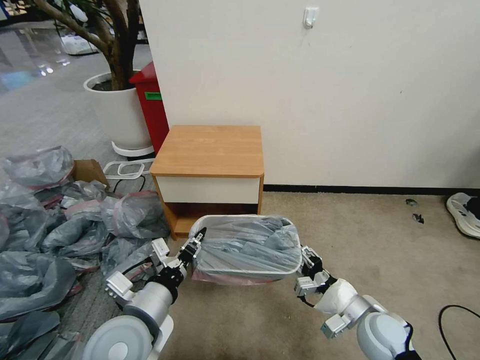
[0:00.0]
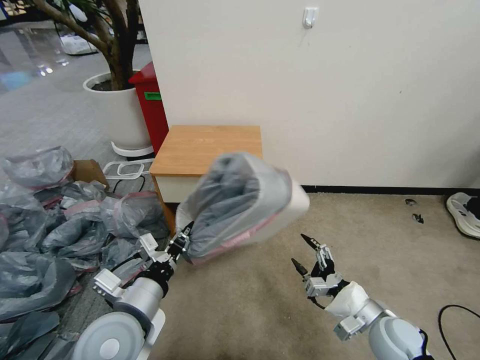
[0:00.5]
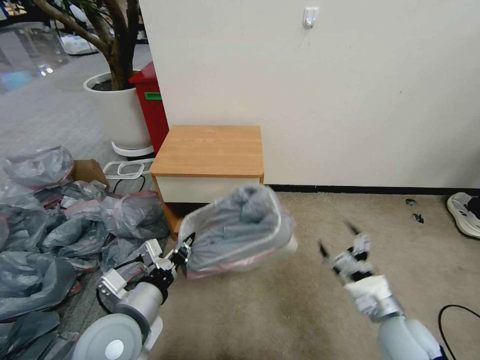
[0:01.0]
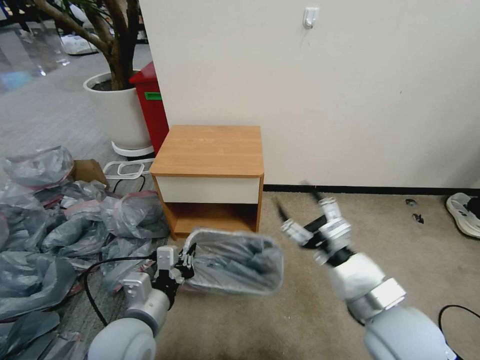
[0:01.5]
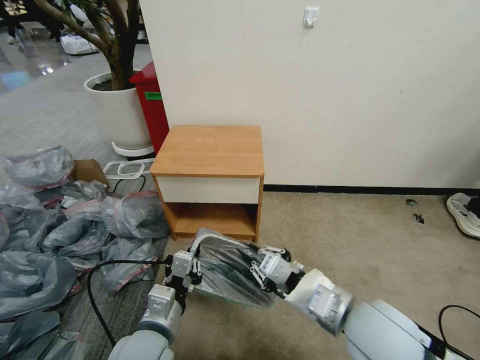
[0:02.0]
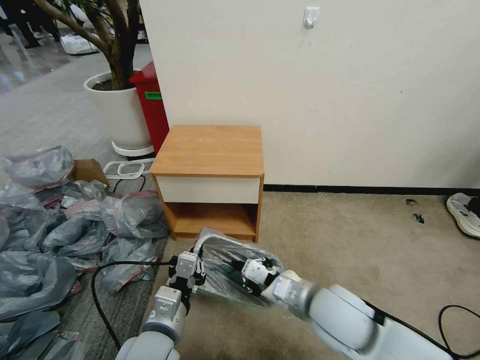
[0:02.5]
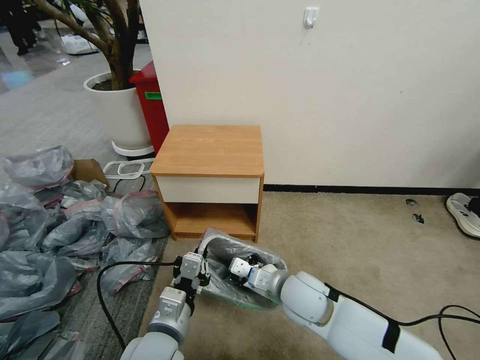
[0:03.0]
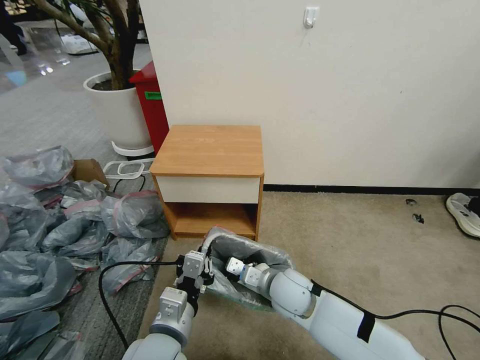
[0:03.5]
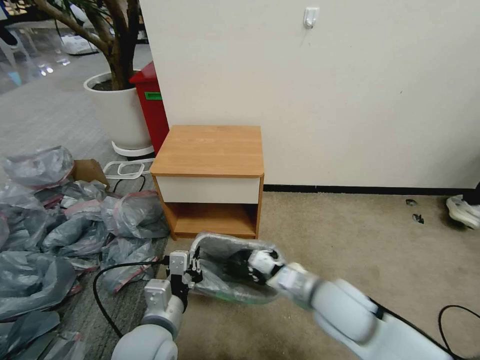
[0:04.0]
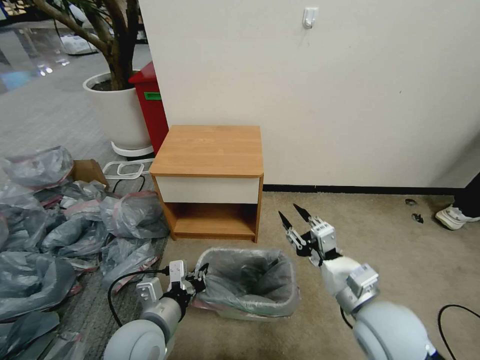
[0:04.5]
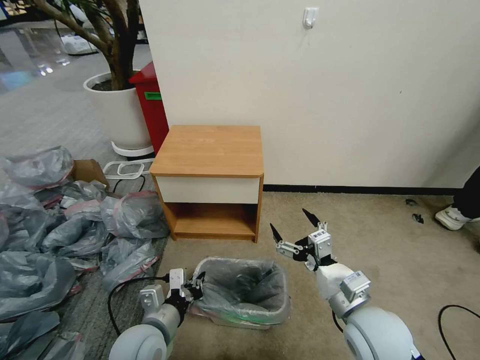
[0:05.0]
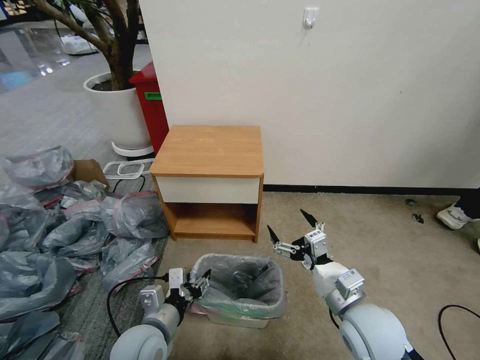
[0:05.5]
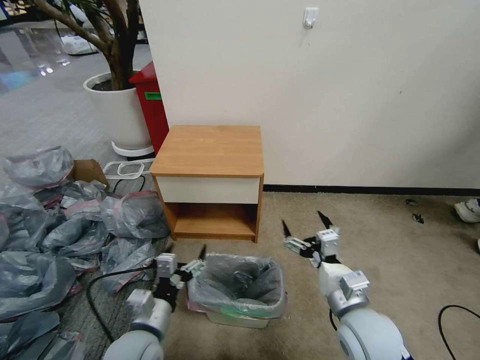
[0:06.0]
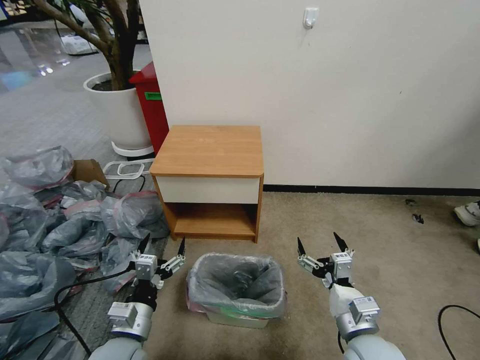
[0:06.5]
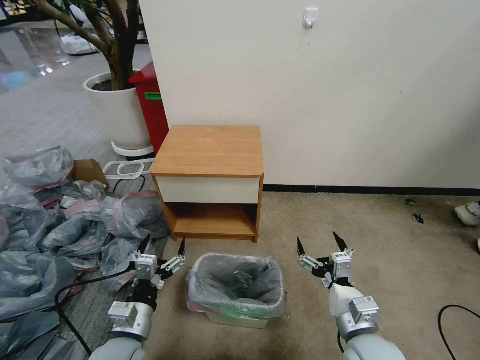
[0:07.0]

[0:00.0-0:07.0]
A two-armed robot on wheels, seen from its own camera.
Task of the whole recording: Pick up the garbage bag from the table and place it over the trash can.
0:00.0 to 0:02.0: The left gripper shifts by some 5 cm; the right gripper goes roughly 20 cm upward and to the left, and closes.
0:02.0 to 0:03.5: The right gripper shifts about 20 cm downward, forward and to the left.
0:03.5 to 0:05.0: The left gripper heads downward and to the left, covering about 10 cm. Meanwhile the right gripper is displaced to the right, backward and upward by roughly 20 cm, and opens.
0:05.0 to 0:07.0: The left gripper opens up. Meanwhile the right gripper is displaced downward by some 5 cm.

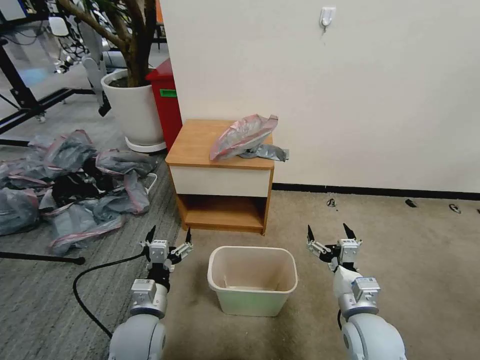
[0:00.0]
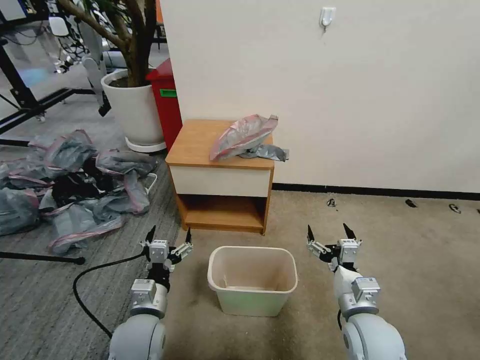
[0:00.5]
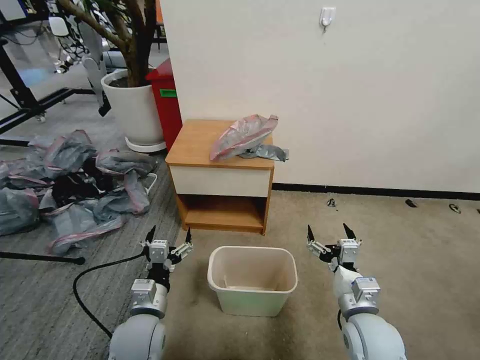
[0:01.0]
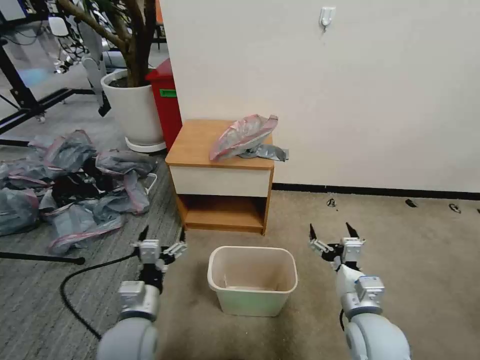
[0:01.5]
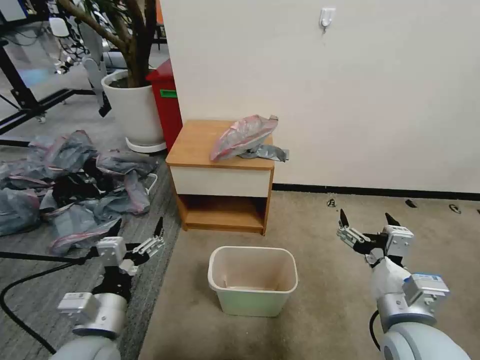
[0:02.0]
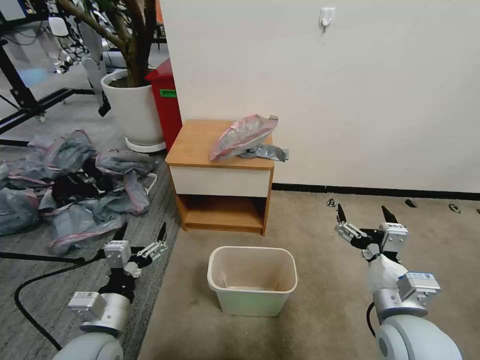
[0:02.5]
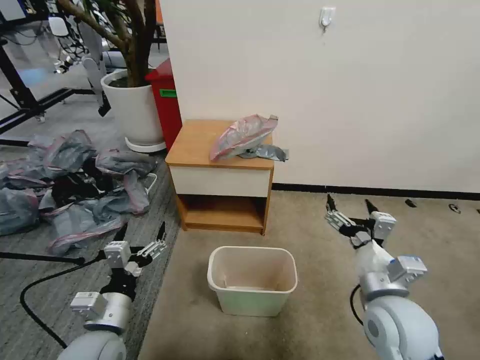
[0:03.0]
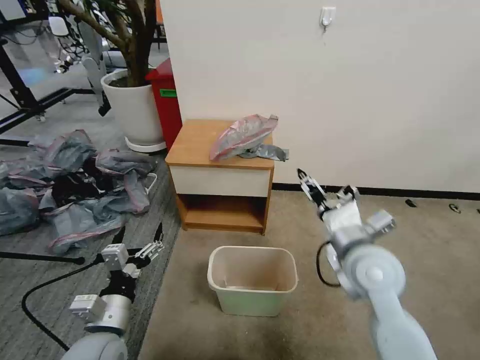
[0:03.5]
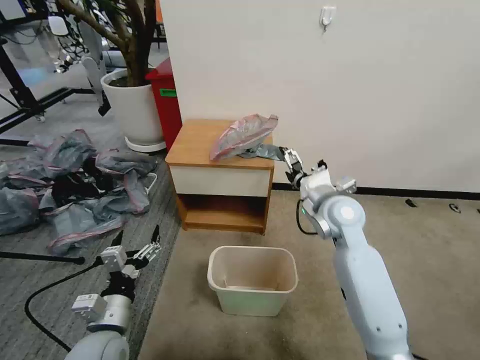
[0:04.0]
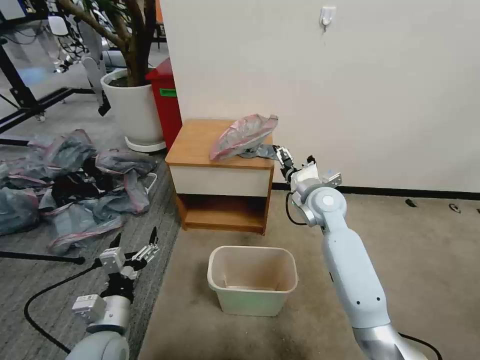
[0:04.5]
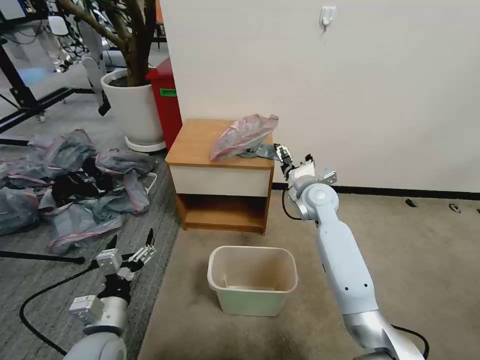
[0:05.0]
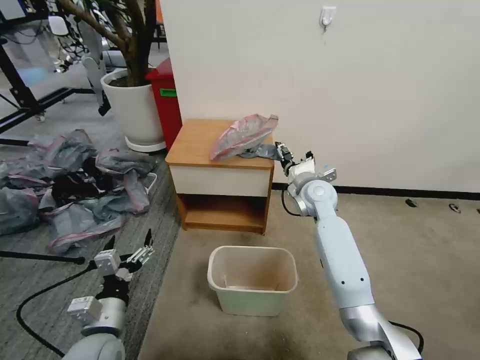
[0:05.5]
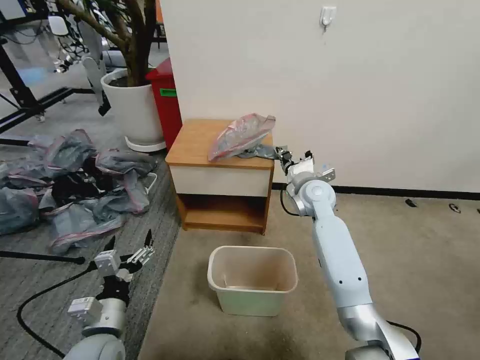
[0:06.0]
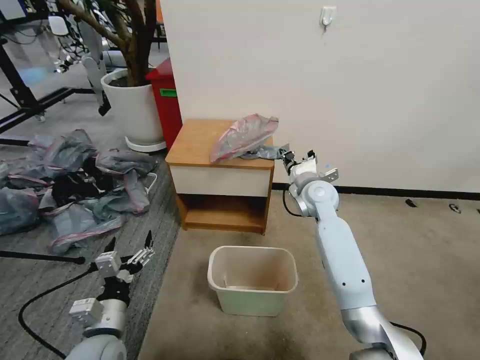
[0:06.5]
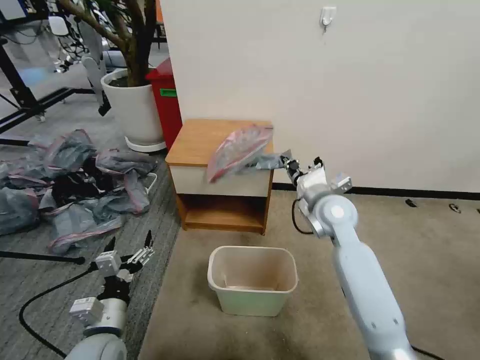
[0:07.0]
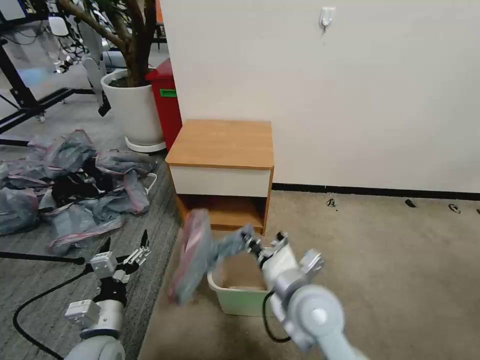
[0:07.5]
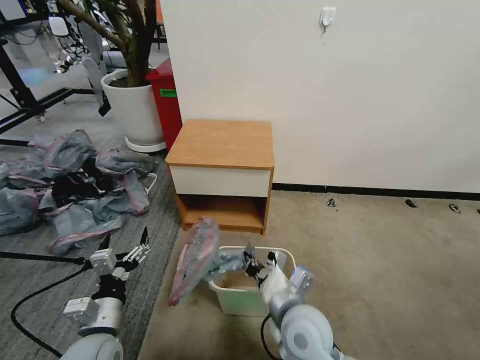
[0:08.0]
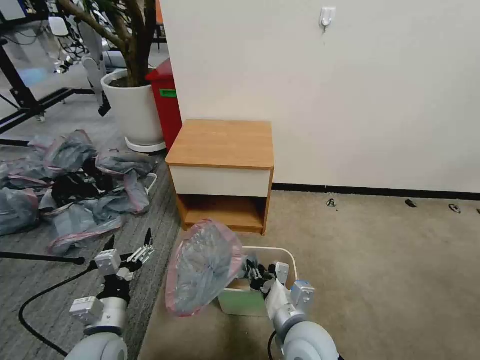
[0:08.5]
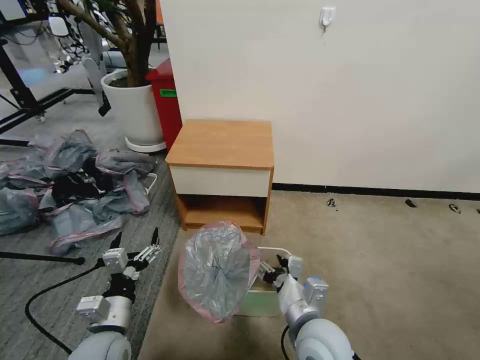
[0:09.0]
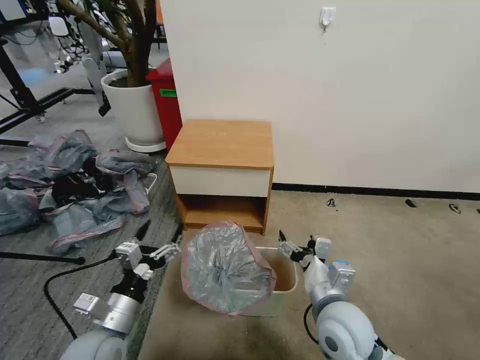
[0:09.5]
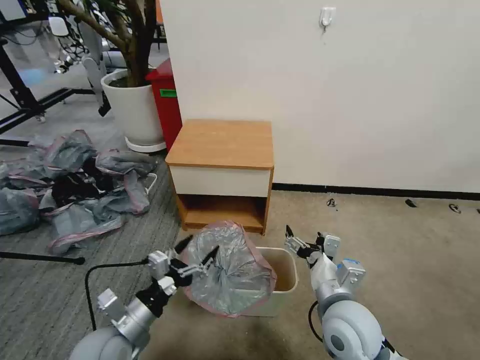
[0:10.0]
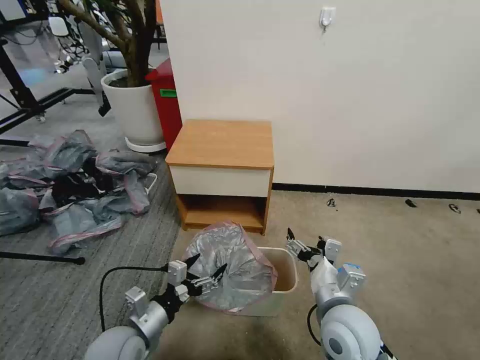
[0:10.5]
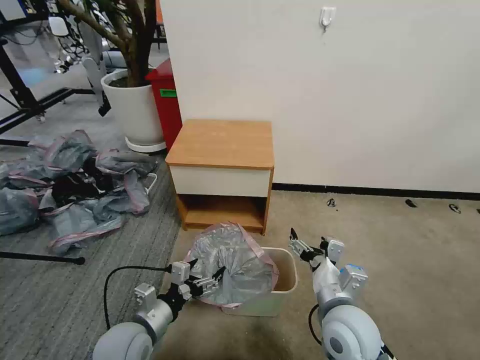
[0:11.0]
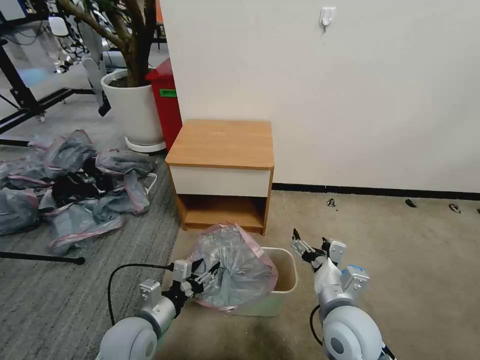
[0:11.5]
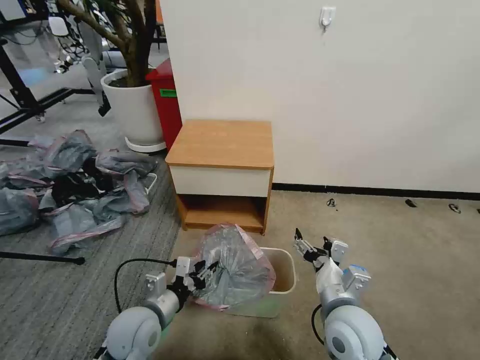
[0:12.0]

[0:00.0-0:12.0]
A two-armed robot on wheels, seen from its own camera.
Task of the whole recording: Pick up the garbage bag from the table and place it over the trash can.
0:02.0 to 0:04.0: The right gripper is displaced forward by approximately 25 cm. Meanwhile the left gripper heads downward, covering some 5 cm.
0:04.0 to 0:06.0: The right gripper heads forward, covering approximately 10 cm, and closes up.
0:06.0 to 0:08.0: The right gripper heads backward, covering roughly 30 cm.
0:08.0 to 0:10.0: The right gripper heads to the right, covering some 10 cm, and opens up.
0:10.0 to 0:12.0: The left gripper shifts by roughly 5 cm, and closes its fingers.

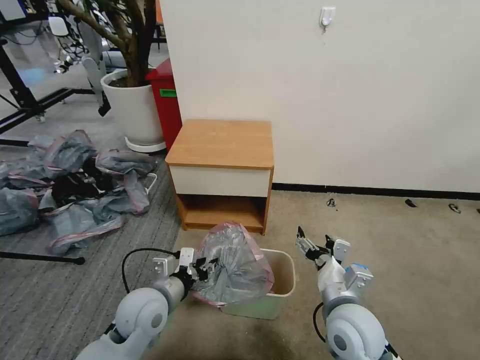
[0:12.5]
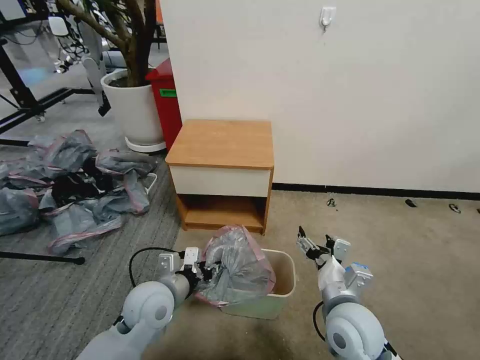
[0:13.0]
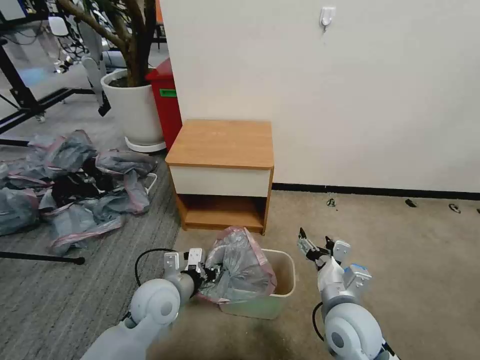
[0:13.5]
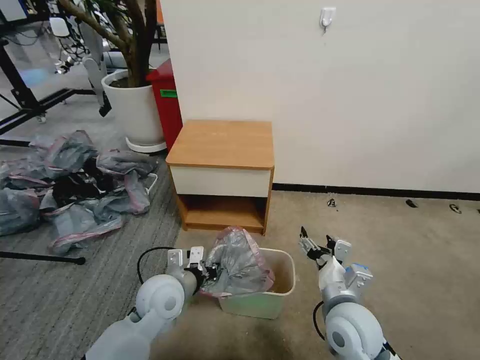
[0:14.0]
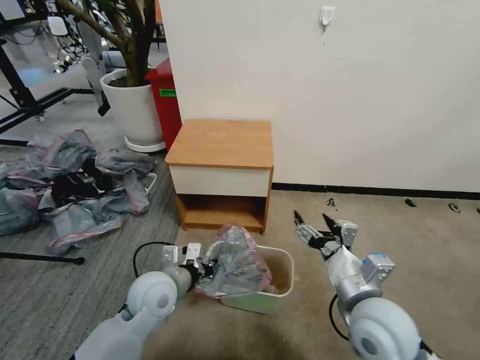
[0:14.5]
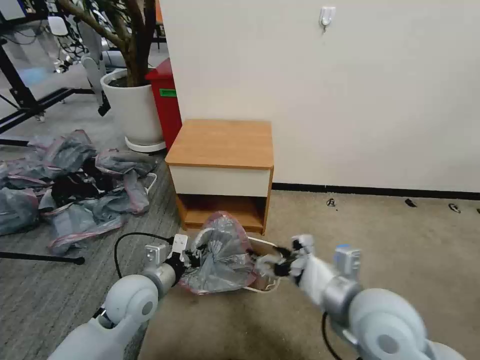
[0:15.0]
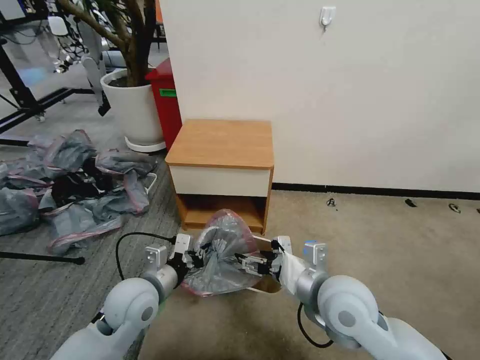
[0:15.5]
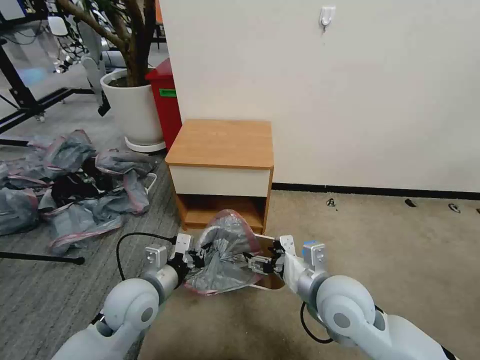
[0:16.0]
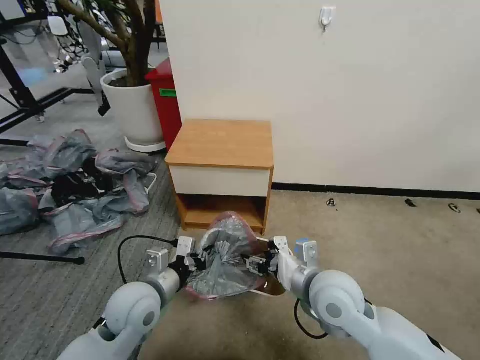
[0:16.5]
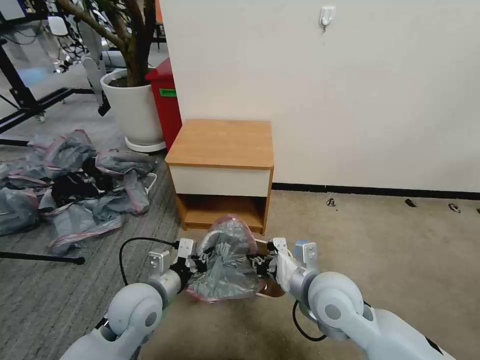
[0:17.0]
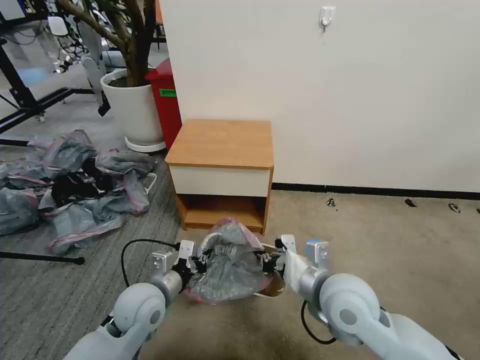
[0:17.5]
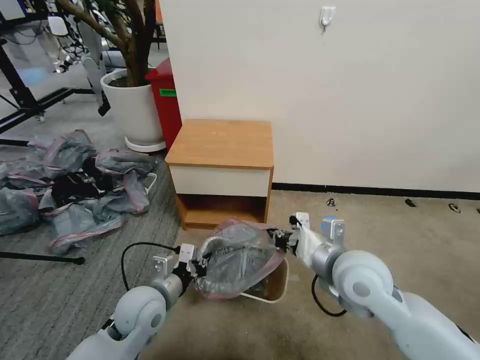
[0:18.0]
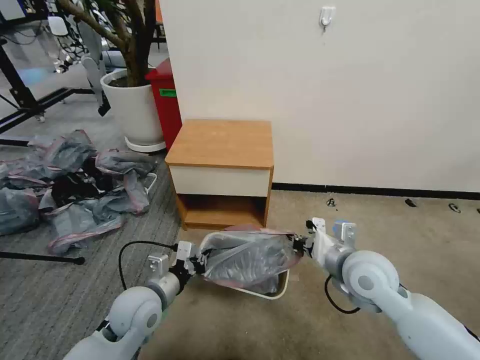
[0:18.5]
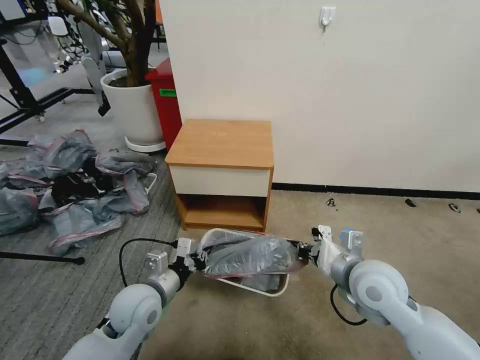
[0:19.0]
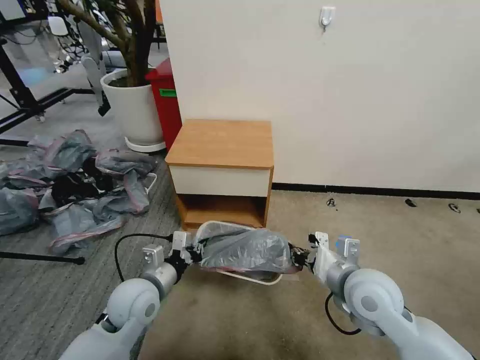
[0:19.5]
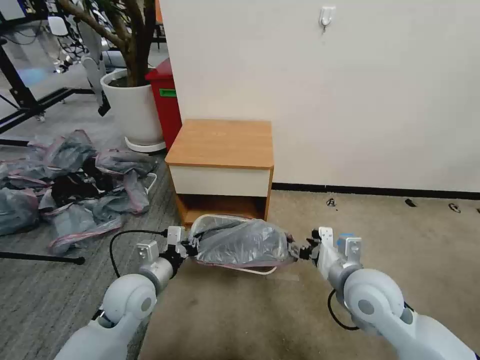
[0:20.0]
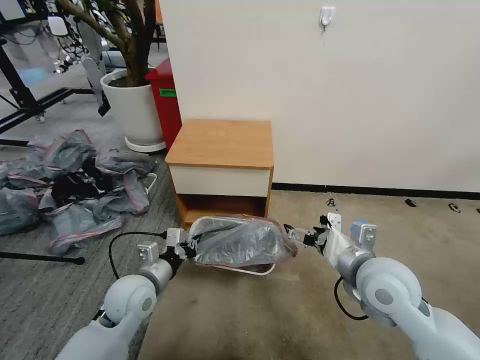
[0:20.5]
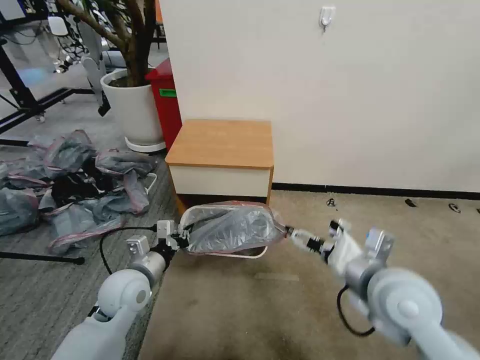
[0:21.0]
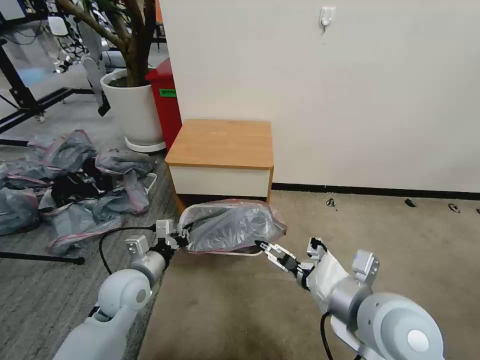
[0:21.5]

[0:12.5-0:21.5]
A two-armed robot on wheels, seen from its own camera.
Task of the whole recording: Pick up the garbage bag from the table and place it over the trash can.
0:12.5 to 0:14.5: The left gripper closes its fingers.
0:14.5 to 0:17.0: The right gripper goes approximately 5 cm to the left, reaches about 10 cm upward, then returns, and closes up.
0:17.0 to 0:19.5: The right gripper travels to the right by roughly 5 cm.
0:19.5 to 0:21.5: The right gripper shifts approximately 10 cm upward and backward, and opens its fingers.
